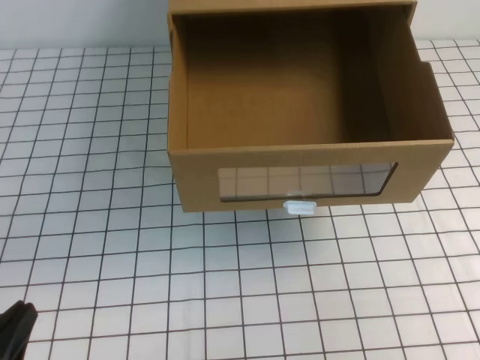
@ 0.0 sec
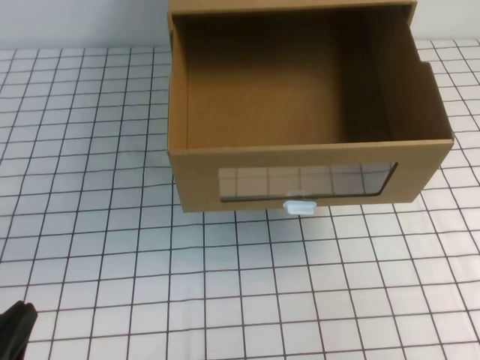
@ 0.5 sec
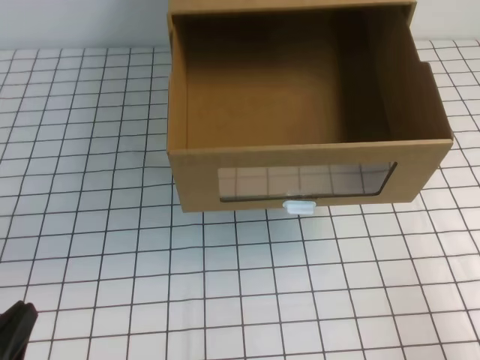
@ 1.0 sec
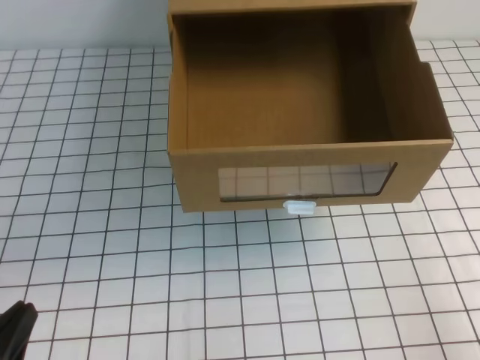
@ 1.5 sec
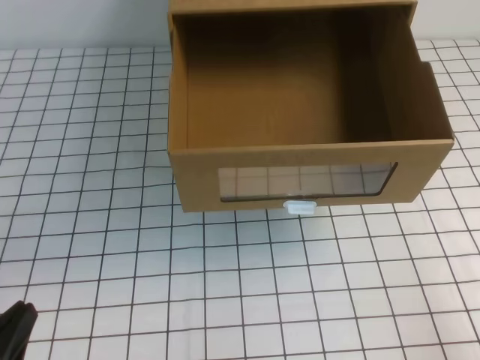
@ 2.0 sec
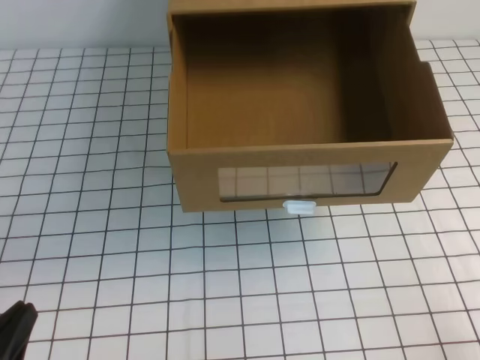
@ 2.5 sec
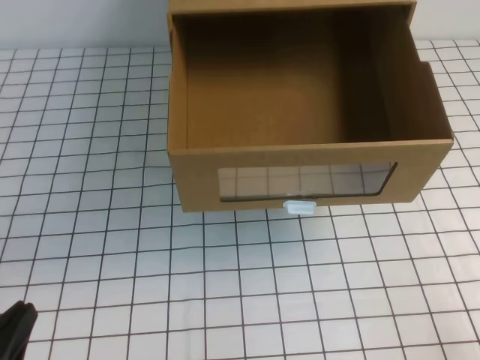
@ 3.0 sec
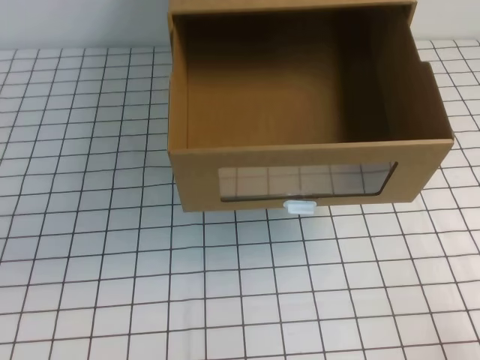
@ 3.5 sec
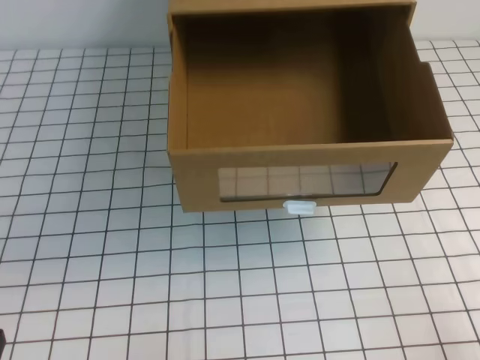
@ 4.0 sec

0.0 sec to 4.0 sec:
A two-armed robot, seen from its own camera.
Task of the whole recording: open the shoebox on the white tablecloth.
Step, 0.0 sec to 4.0 sec: Open the shoe box.
0.0 sec to 2.0 sec: The right gripper travels downward and backward by approximately 15 cm.
2.0 sec to 4.0 sec: There are only small adjustments of the grippers.

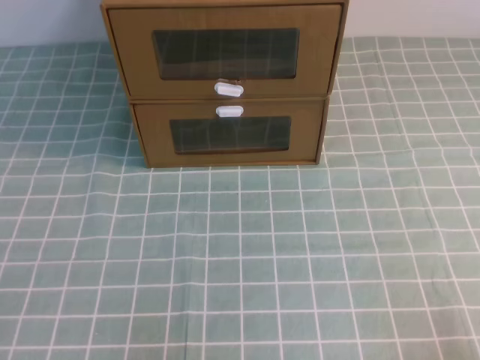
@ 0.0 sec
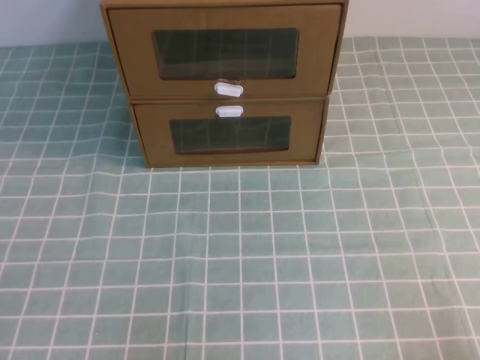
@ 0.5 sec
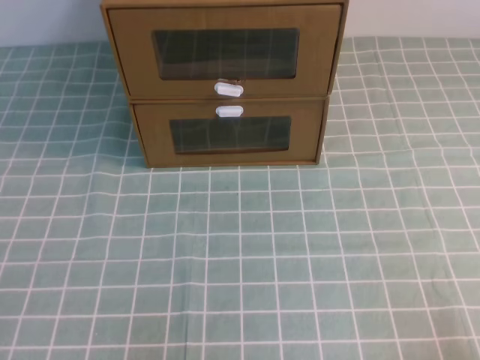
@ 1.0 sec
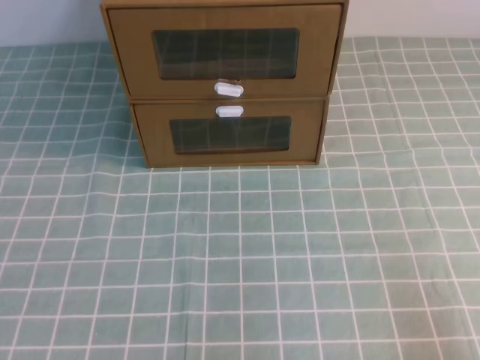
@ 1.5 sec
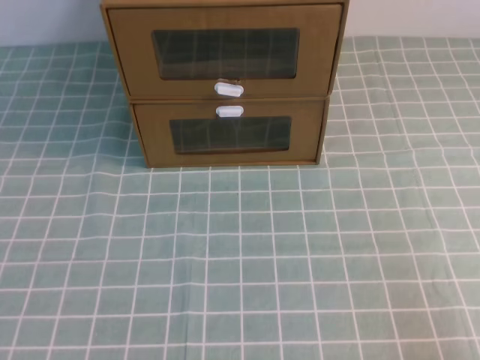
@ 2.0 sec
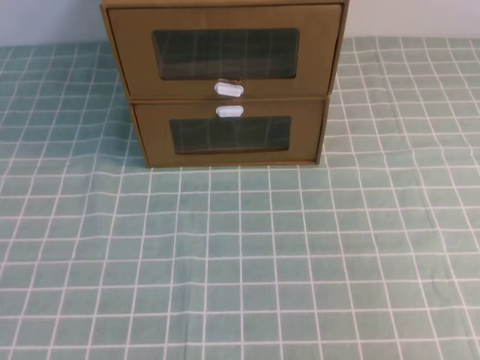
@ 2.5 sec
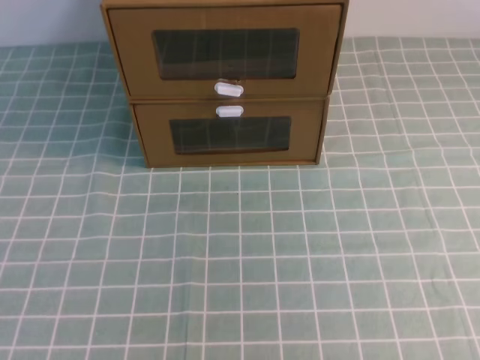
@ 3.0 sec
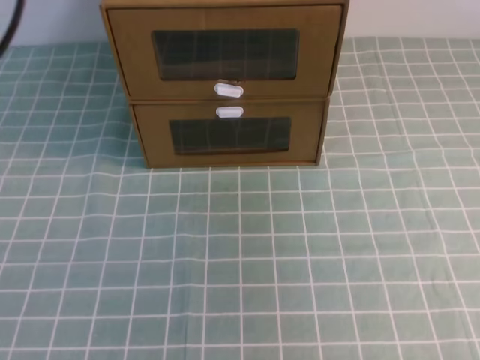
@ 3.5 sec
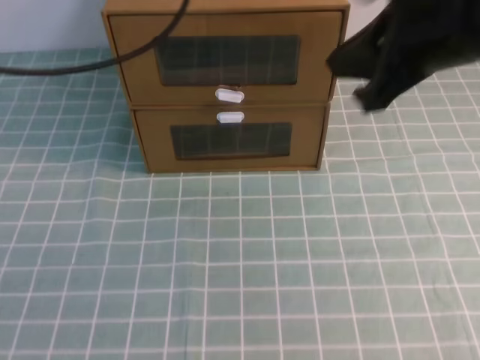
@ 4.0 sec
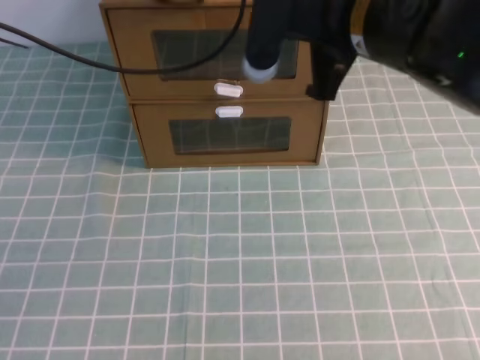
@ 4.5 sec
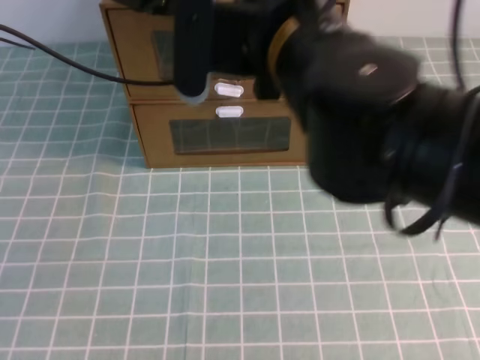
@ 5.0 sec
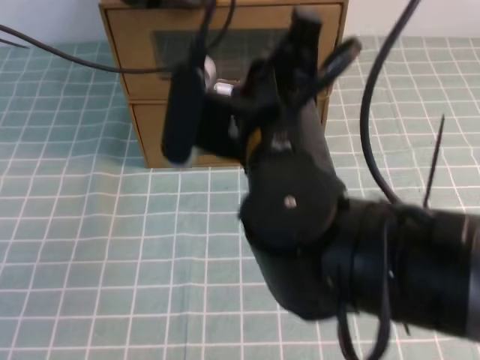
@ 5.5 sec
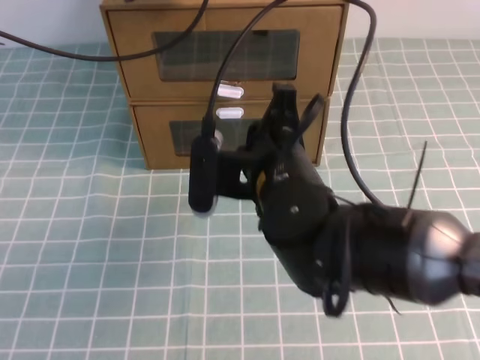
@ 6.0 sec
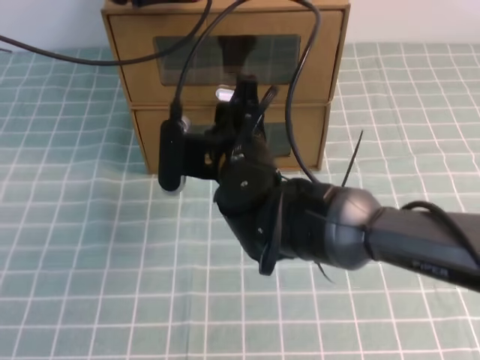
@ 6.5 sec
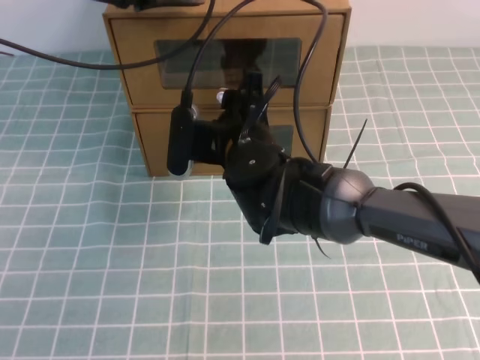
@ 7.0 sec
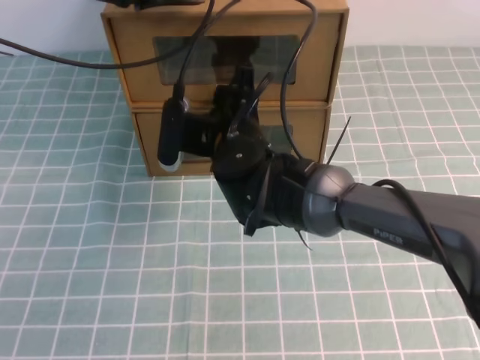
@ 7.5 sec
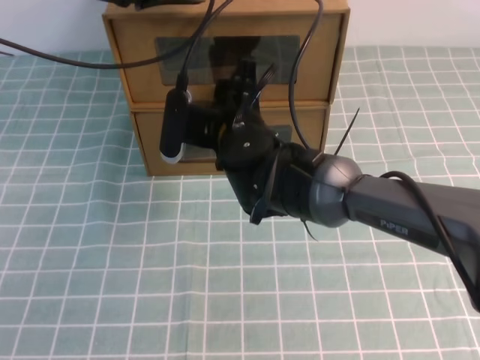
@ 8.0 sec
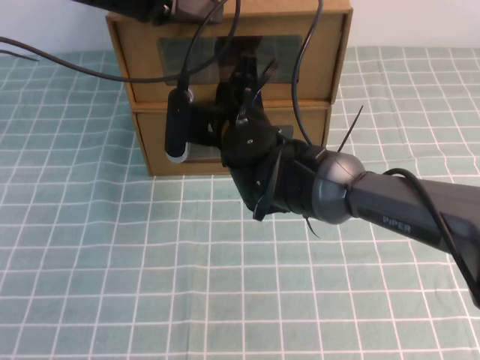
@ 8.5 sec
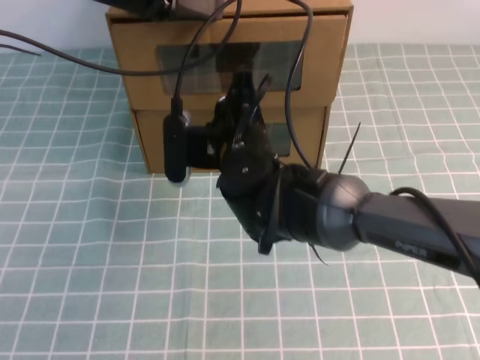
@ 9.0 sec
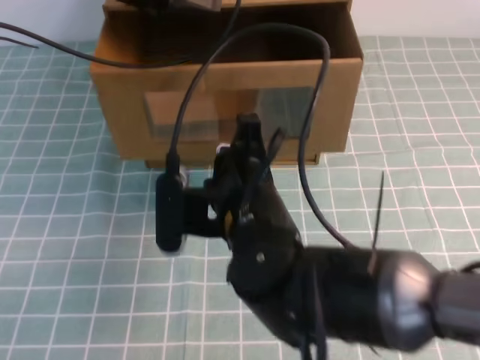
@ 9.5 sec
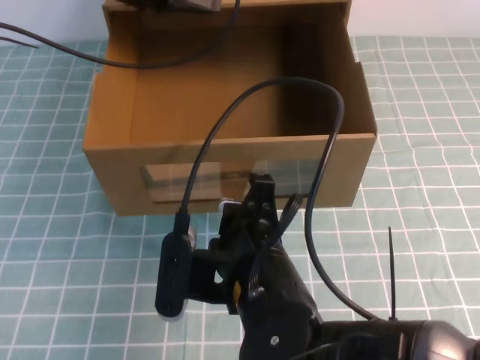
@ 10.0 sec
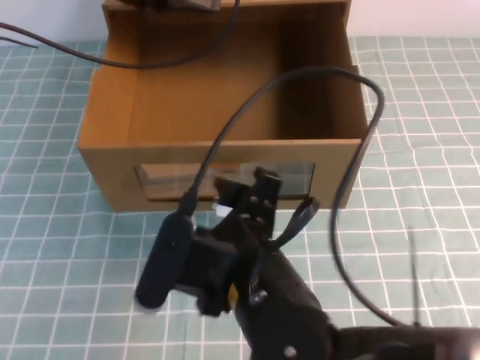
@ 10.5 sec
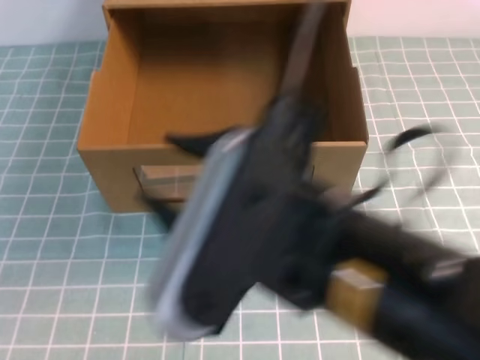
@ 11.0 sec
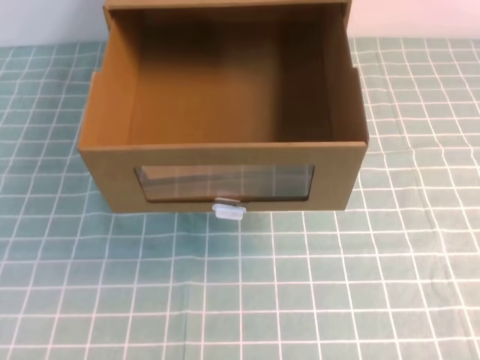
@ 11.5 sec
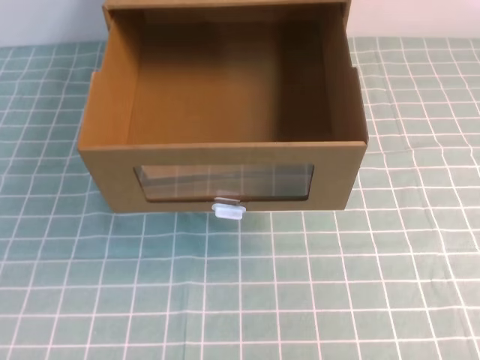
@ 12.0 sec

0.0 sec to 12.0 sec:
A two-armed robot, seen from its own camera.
Task of the whole recording: open the shoebox on the cyan tablecloth.
2.0 sec to 4.0 sec: The left gripper is displaced forward and upward by approximately 40 cm; the right gripper heads forward, to the left and upward, covering roughly 35 cm.
4.0 sec to 6.0 sec: The right gripper heads to the left and downward, covering approximately 20 cm. The left gripper goes some 10 cm forward and downward.
6.0 sec to 8.0 sec: The right gripper heads forward, covering roughly 10 cm, and opens.
8.0 sec to 10.0 sec: The right gripper moves backward, about 20 cm, and closes its fingers.
10.0 sec to 12.0 sec: The left gripper moves backward, some 40 cm. The right gripper goes roughly 40 cm to the right, upward and backward, and opens, then closes again.

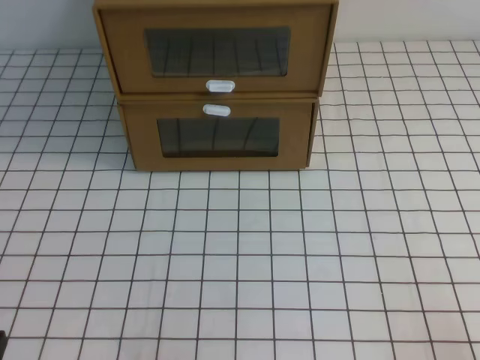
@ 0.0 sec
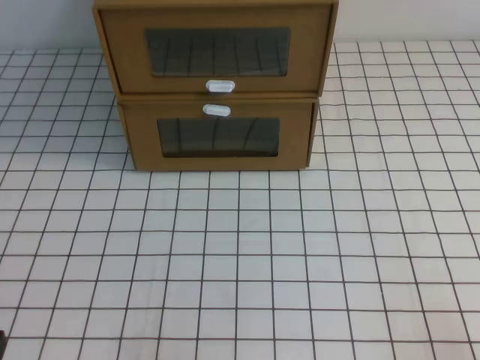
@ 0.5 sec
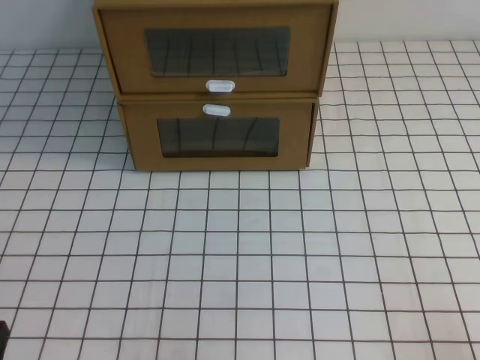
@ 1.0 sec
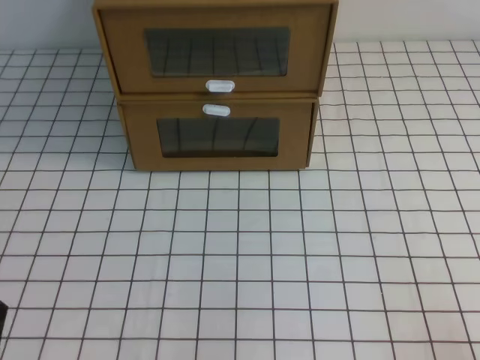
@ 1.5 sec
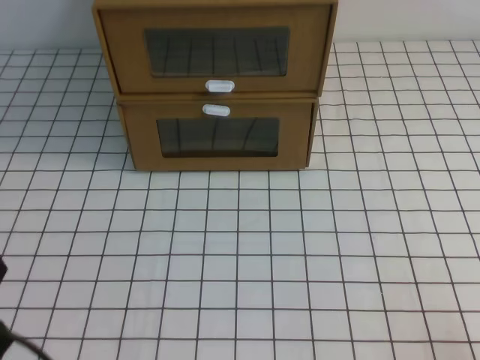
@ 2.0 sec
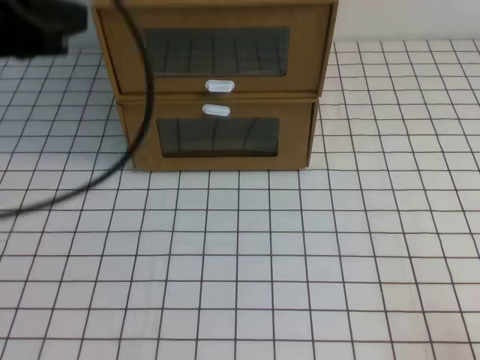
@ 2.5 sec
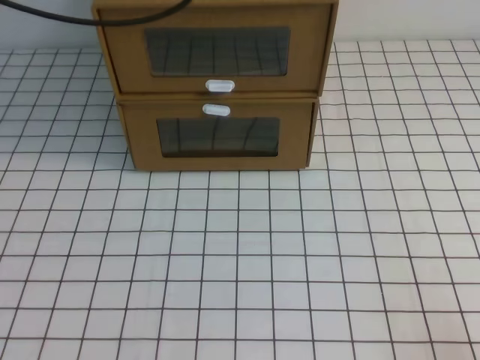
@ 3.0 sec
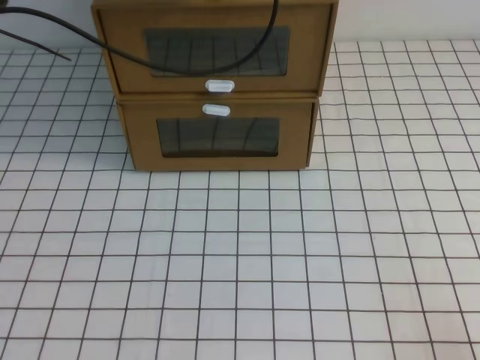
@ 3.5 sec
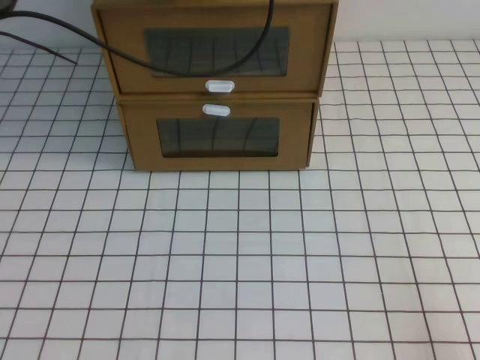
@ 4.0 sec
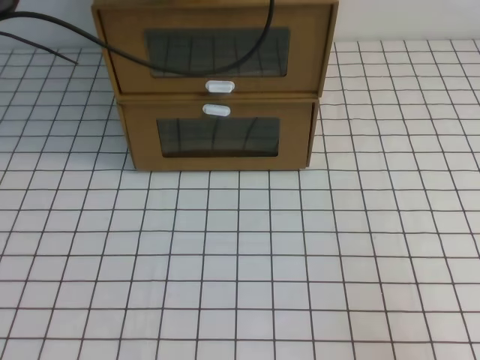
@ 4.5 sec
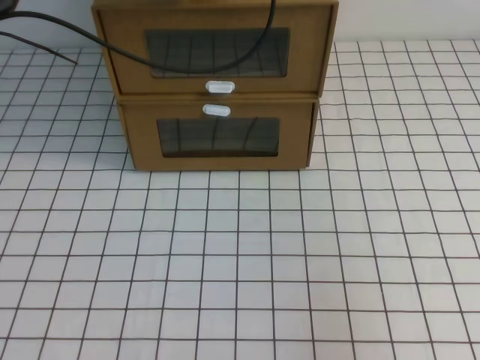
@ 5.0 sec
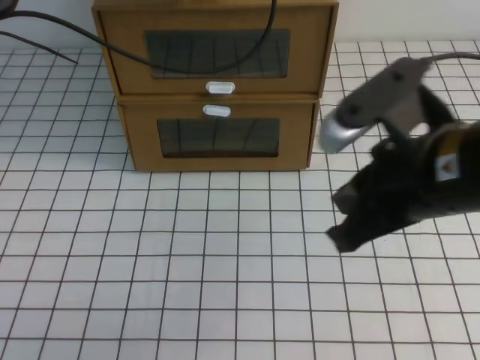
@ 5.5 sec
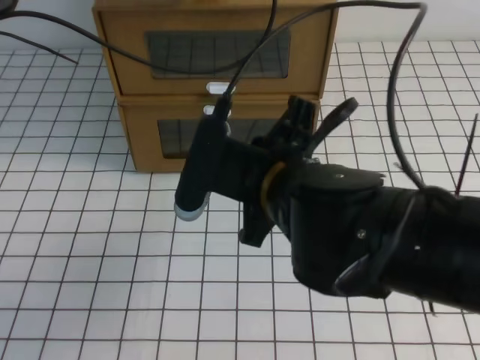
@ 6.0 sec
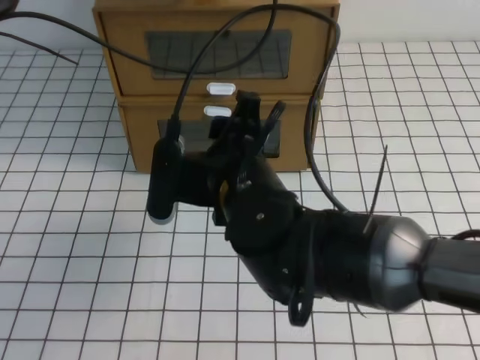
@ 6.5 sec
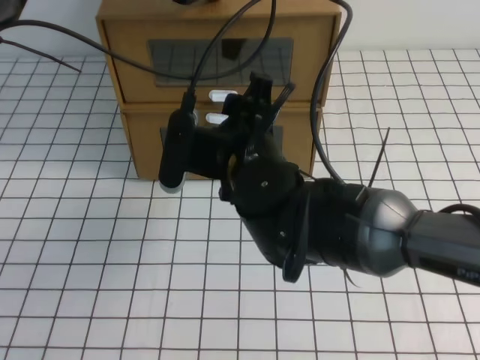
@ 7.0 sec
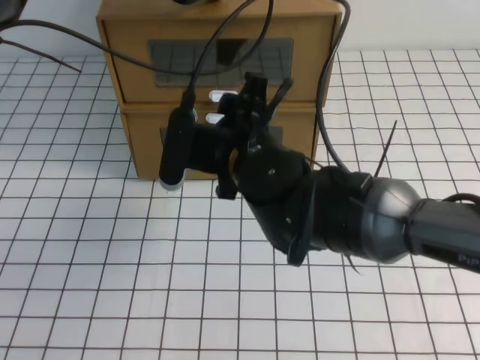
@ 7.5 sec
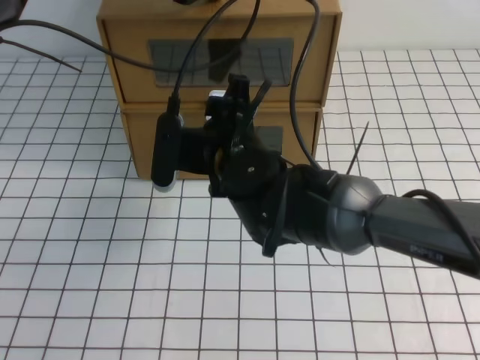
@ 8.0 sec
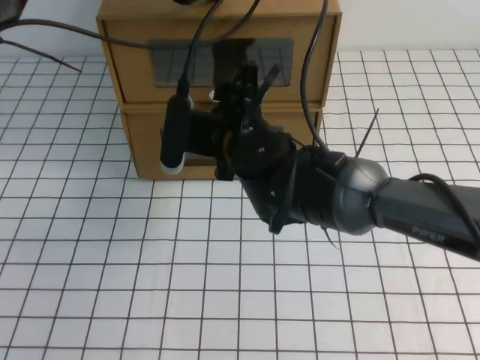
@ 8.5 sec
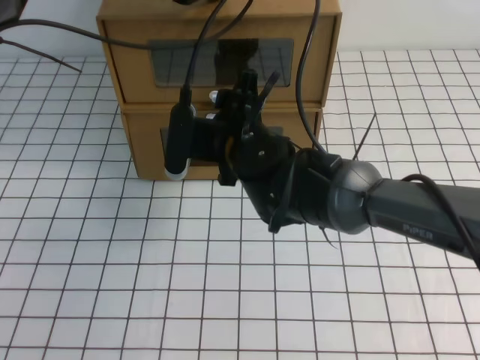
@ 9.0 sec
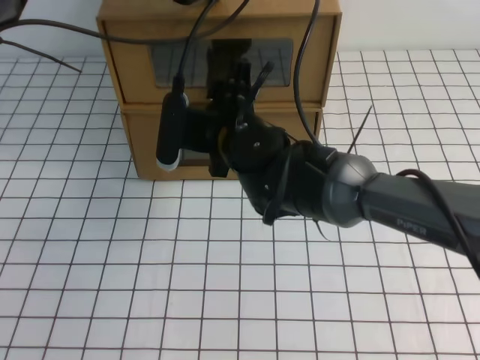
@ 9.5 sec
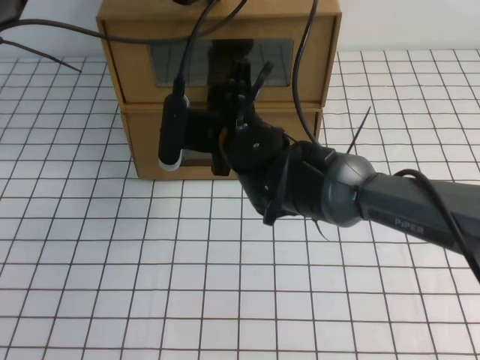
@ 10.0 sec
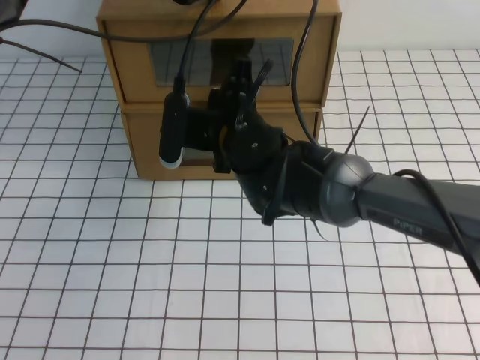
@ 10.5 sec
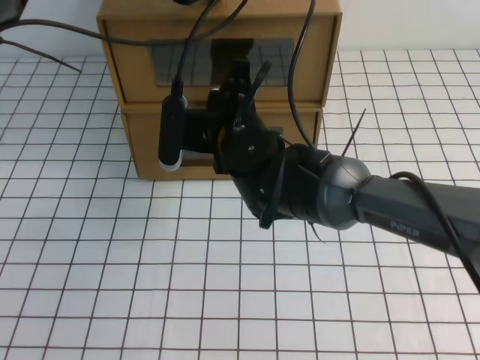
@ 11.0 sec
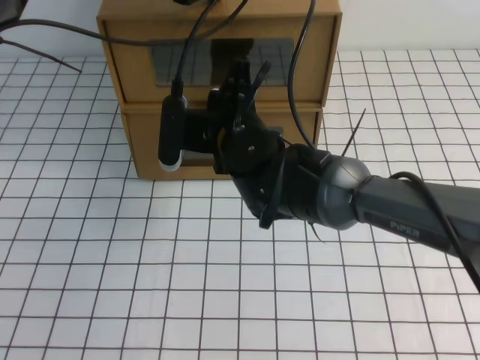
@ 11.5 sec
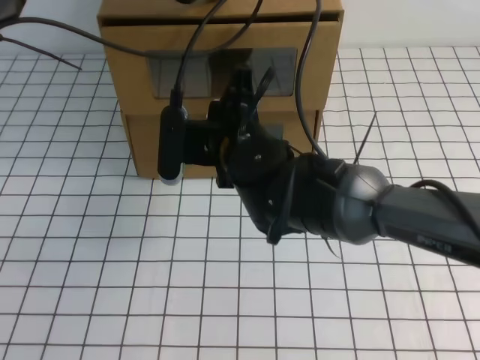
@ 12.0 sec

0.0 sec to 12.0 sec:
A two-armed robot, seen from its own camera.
Task of the whole recording: open the shoebox on the white tablecloth.
2.0 sec to 4.0 sec: The left gripper travels forward by roughly 35 cm.
4.0 sec to 6.0 sec: The right gripper shifts approximately 35 cm to the left, forward and upward.
6.0 sec to 8.0 sec: The right gripper travels forward and to the left by some 10 cm, and opens its fingers.
8.0 sec to 10.0 sec: The grippers move only a little.
10.0 sec to 12.0 sec: The right gripper closes.
